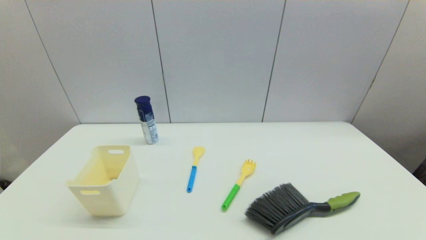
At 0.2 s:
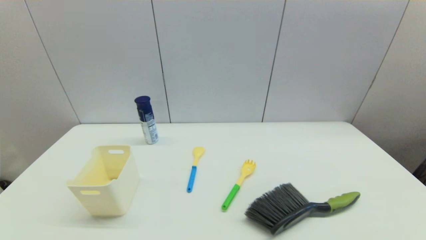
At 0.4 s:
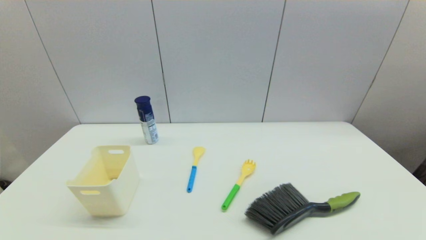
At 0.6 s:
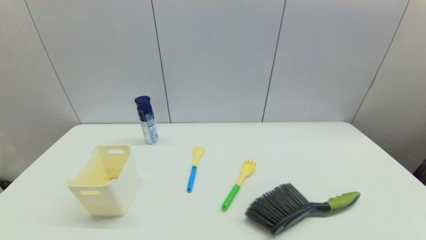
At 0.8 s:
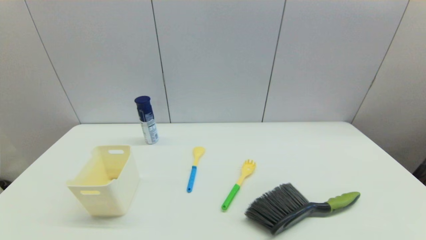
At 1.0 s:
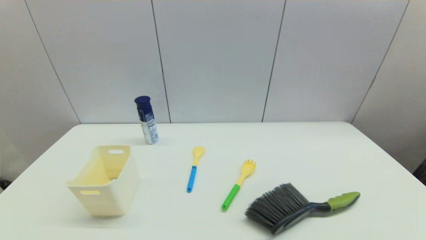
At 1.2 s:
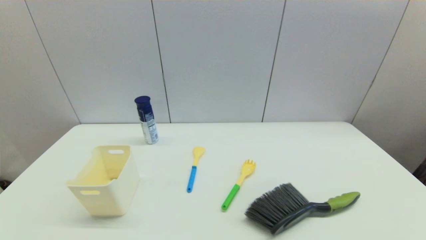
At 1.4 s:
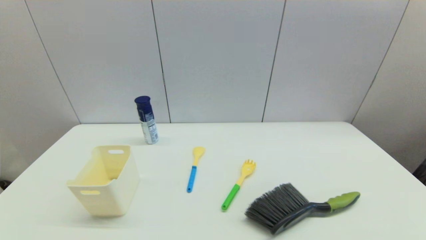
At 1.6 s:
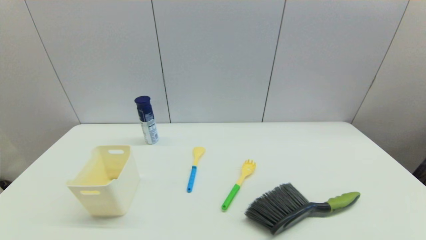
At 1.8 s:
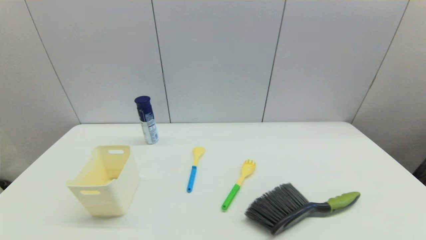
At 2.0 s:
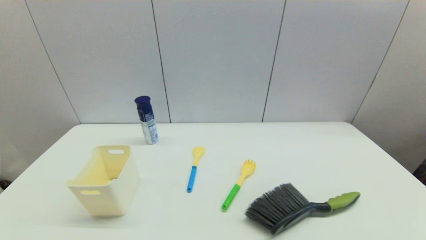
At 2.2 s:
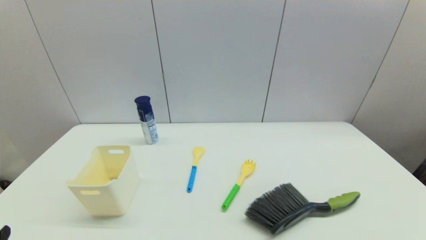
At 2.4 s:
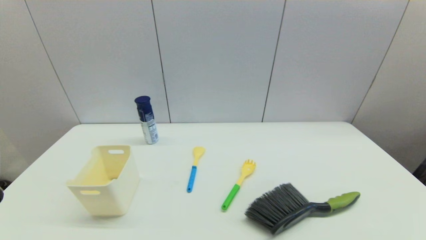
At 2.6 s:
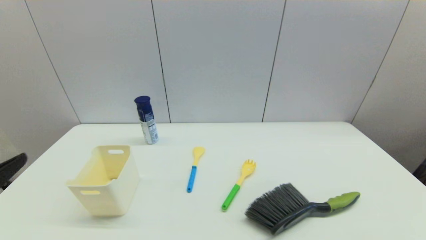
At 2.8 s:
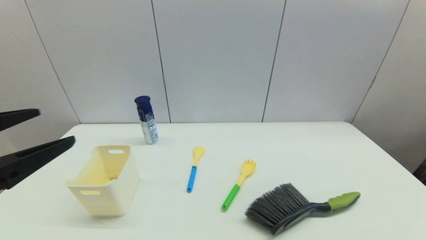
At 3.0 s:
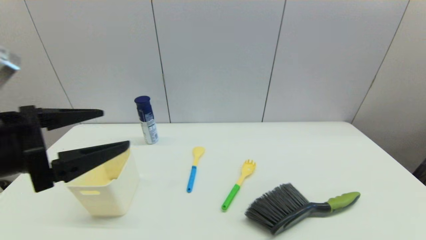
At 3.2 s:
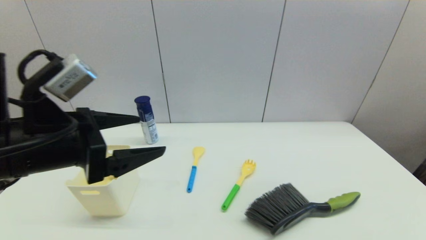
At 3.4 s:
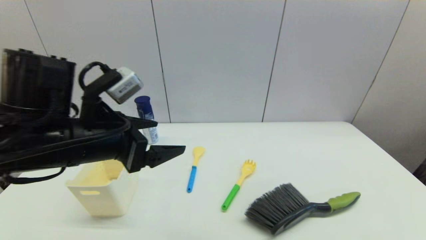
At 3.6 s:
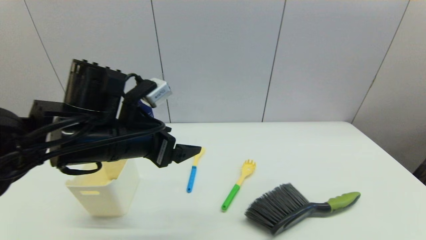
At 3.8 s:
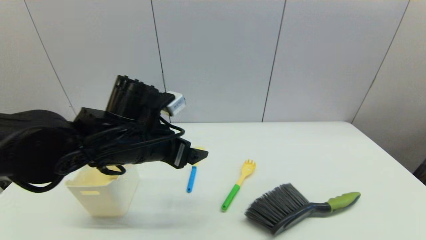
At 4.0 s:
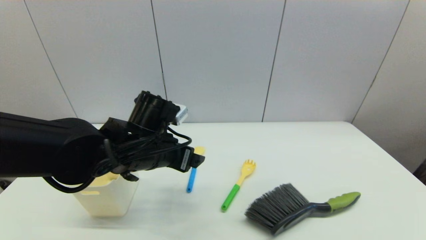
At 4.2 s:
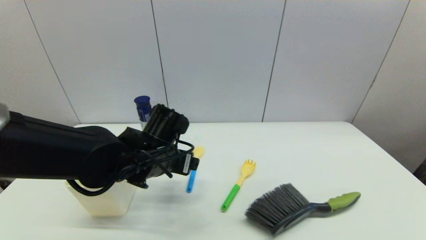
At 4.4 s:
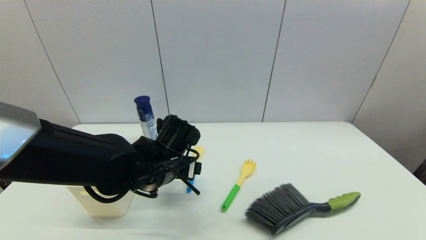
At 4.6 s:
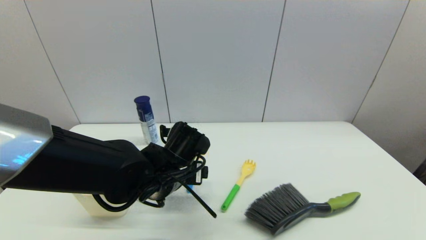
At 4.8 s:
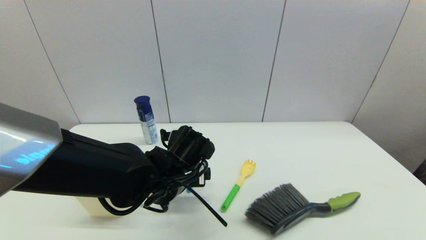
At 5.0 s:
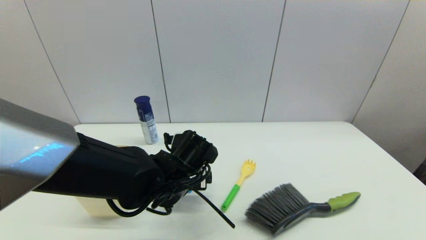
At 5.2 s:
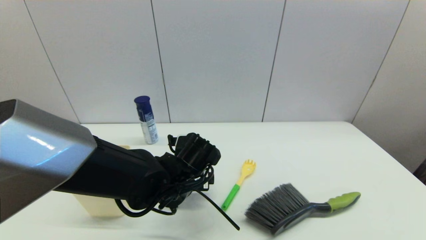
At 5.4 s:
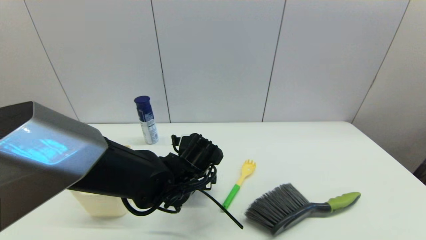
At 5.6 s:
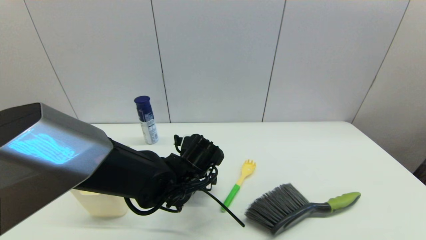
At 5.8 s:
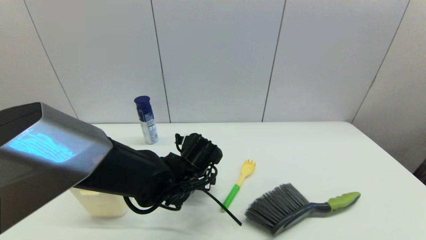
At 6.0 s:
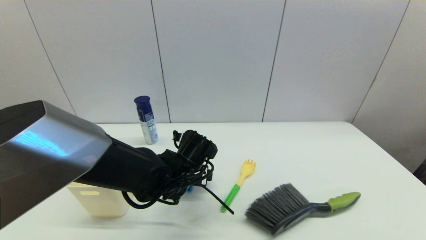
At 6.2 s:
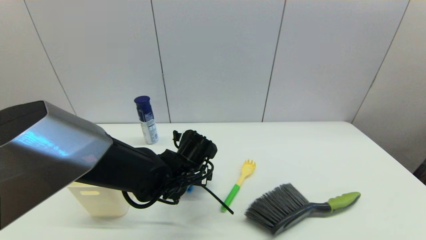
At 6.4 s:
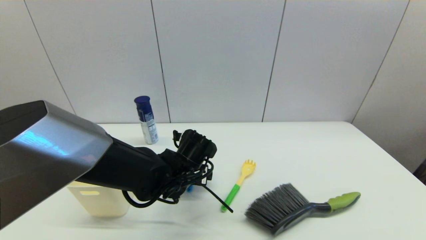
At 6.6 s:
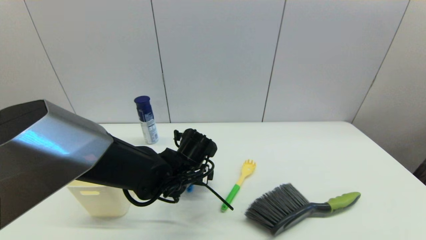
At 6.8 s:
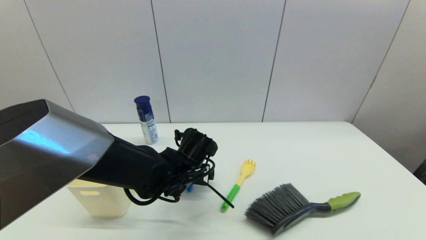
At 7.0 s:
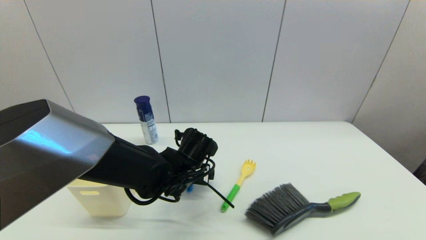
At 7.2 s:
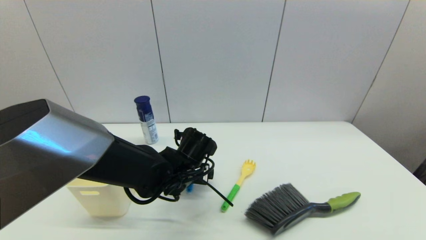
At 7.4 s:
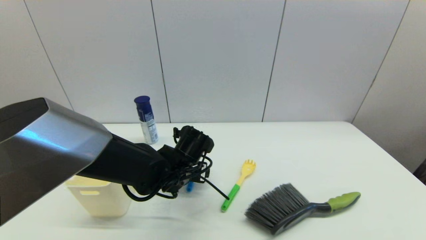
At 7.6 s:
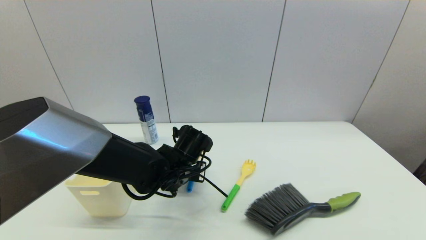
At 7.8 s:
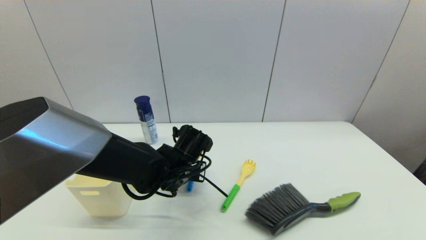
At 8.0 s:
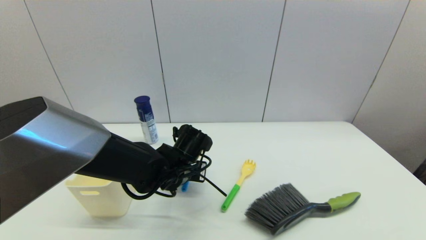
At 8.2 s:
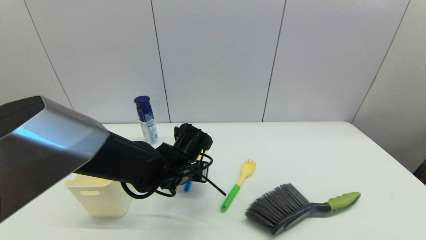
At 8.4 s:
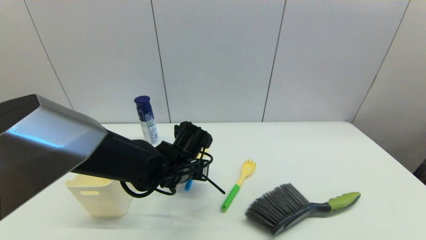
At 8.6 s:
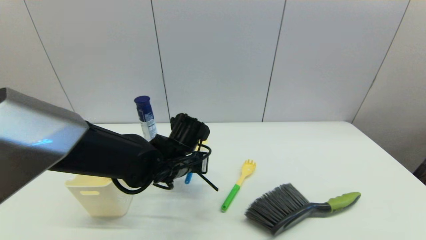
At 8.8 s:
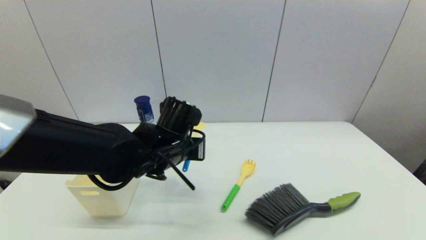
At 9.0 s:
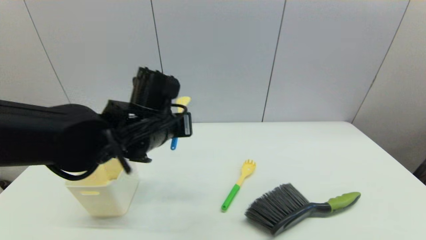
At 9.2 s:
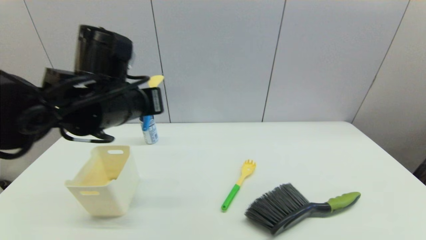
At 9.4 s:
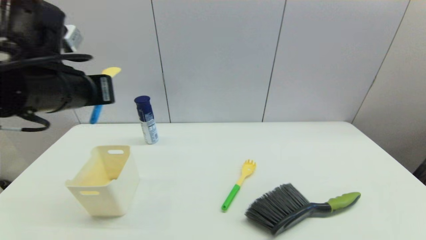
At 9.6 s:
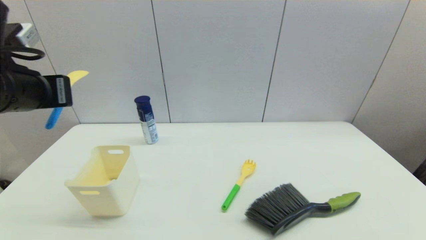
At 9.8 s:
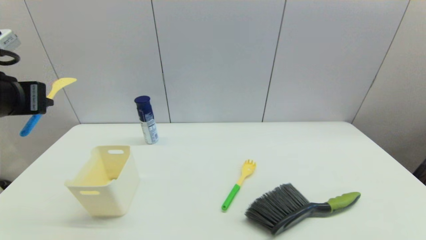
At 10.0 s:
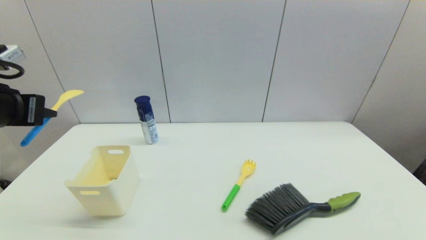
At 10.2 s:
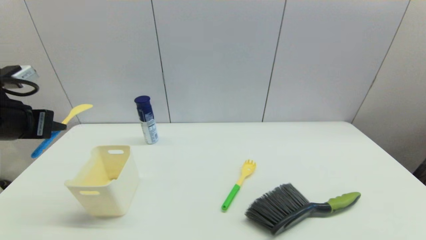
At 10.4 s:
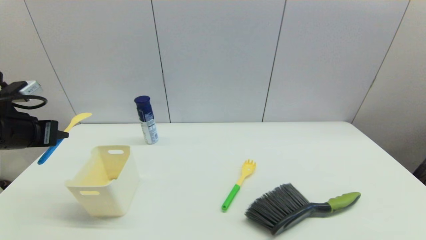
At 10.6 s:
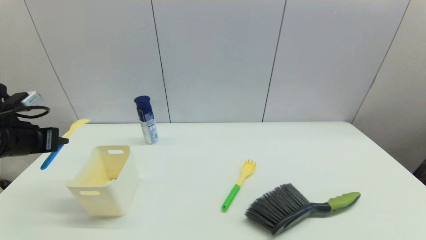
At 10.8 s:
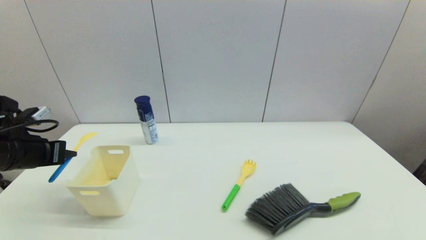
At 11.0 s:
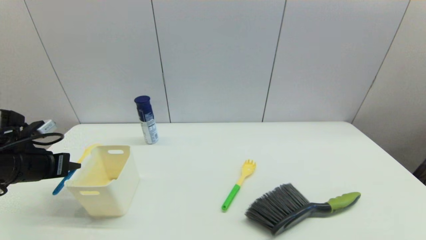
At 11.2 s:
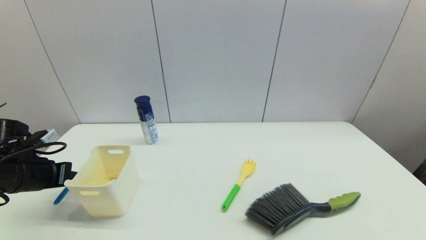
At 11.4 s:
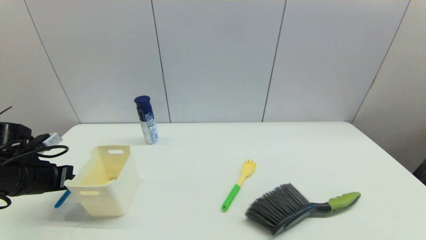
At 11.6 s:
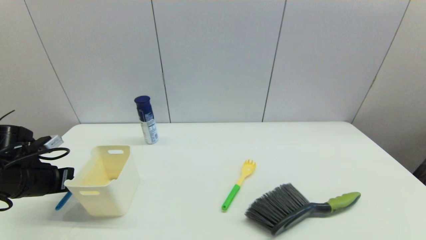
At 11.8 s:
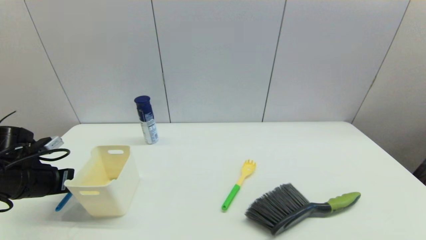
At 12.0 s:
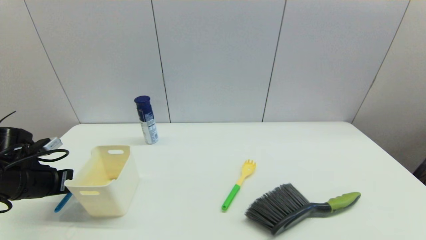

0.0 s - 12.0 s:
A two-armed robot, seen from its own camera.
Step, 2.2 s - 8.0 s: Grasp the spoon with left gripper.
0.0 s - 1.6 s: Neither gripper changes place.
1.6 s - 3.0 s: The left gripper goes roughly 25 cm upward and forward.
3.0 s - 4.4 s: The left gripper goes approximately 25 cm to the right, downward and forward.
4.4 s - 6.0 s: The left gripper moves some 5 cm.
6.0 s - 7.6 s: The left gripper closes.
7.6 s - 9.0 s: The left gripper is displaced upward by about 15 cm, and closes up.
9.0 s - 10.4 s: The left gripper shifts some 25 cm to the left.
10.4 s - 12.0 s: The left gripper heads downward, covering roughly 10 cm.

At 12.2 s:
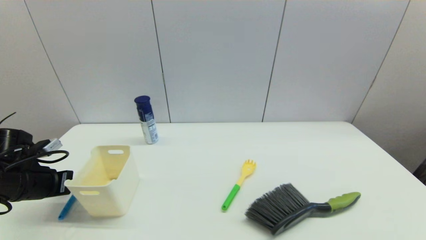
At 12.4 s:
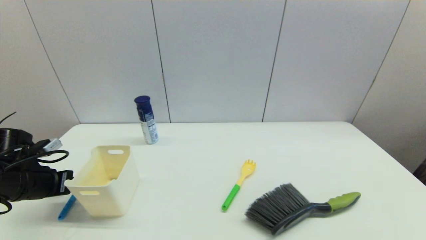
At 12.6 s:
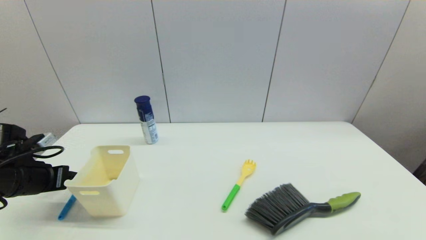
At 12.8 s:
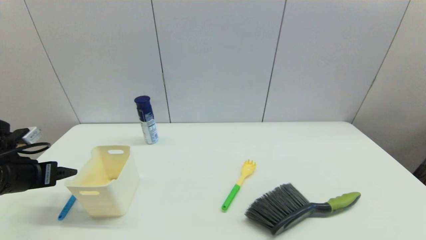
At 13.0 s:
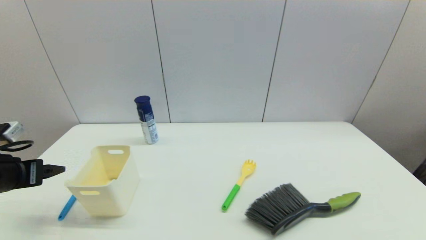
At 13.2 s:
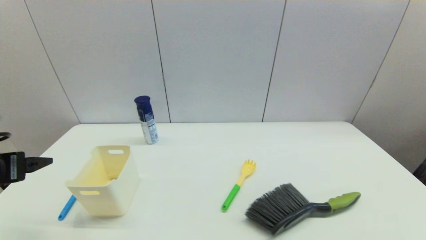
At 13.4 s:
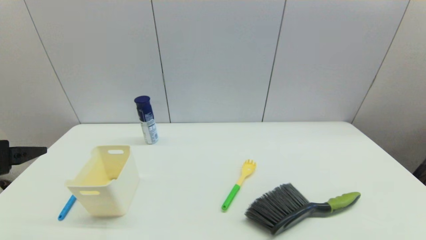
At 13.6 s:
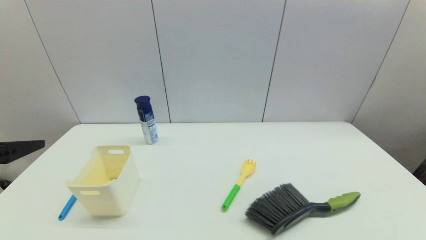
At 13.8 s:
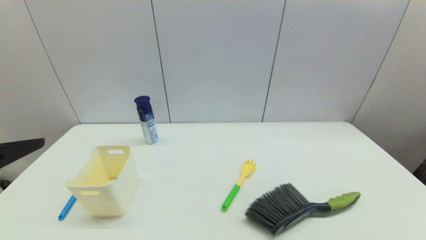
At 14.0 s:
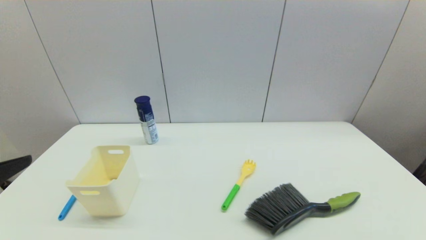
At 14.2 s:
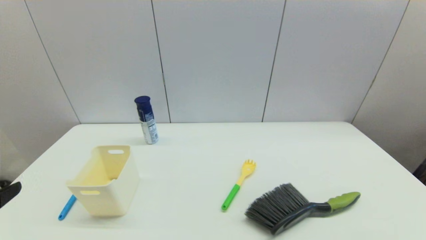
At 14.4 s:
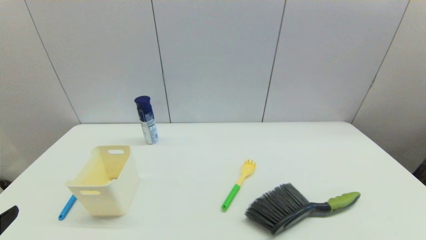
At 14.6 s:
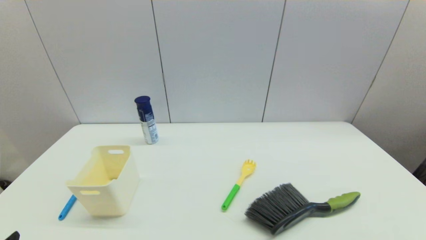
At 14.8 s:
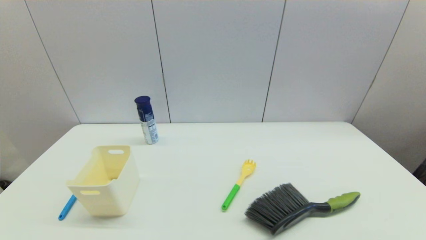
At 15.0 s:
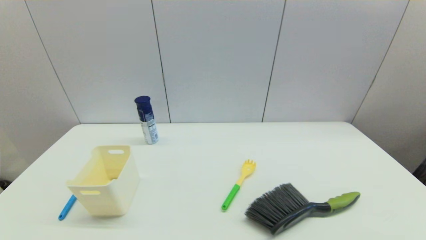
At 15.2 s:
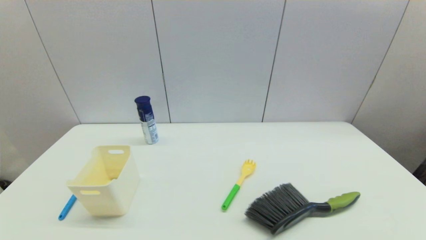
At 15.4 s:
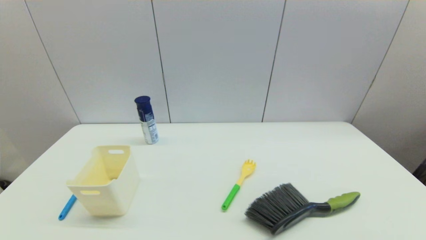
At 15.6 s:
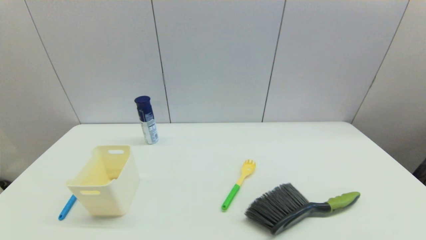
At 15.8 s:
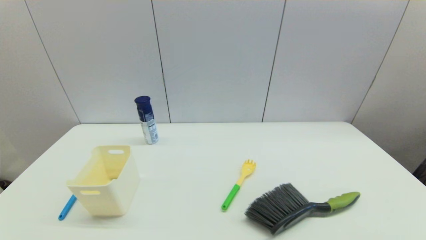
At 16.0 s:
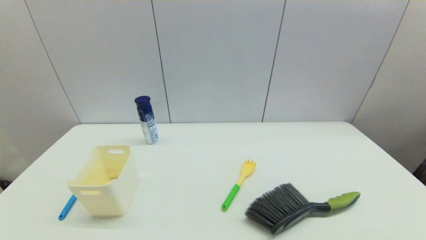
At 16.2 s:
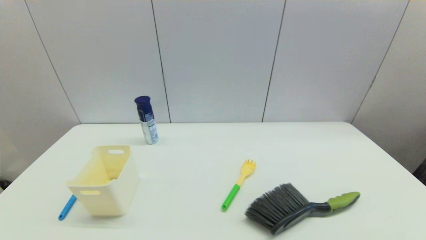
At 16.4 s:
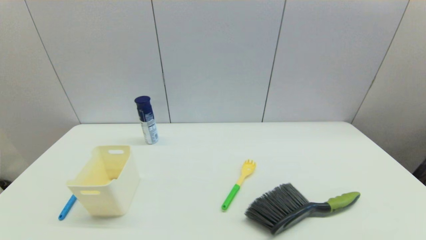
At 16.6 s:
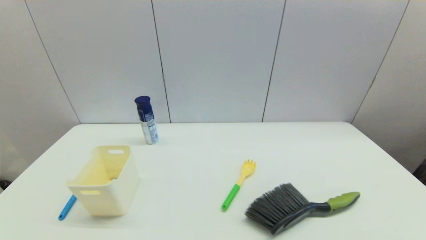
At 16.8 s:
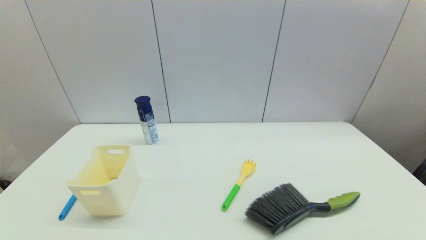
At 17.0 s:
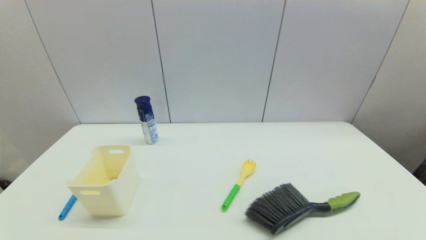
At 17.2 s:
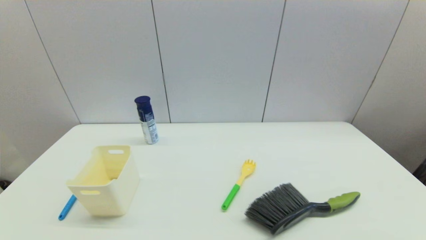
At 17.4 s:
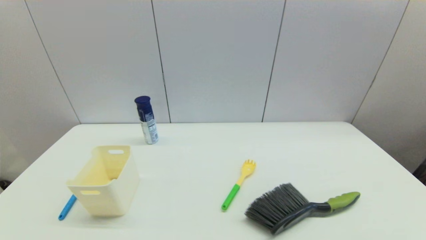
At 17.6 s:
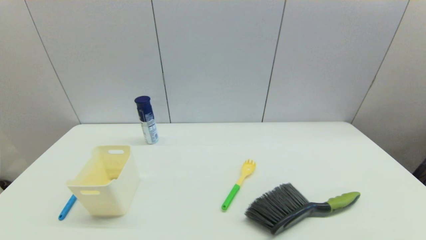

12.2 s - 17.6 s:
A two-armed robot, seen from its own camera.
12.2 s - 13.6 s: The left gripper goes some 20 cm upward and backward, and opens its fingers.
13.6 s - 15.0 s: The left gripper is displaced downward and backward by roughly 20 cm.
16.2 s - 17.6 s: The two grippers keep their place.
